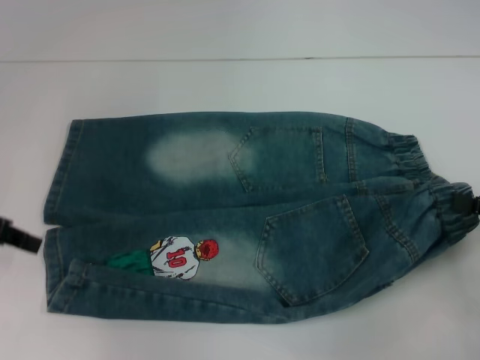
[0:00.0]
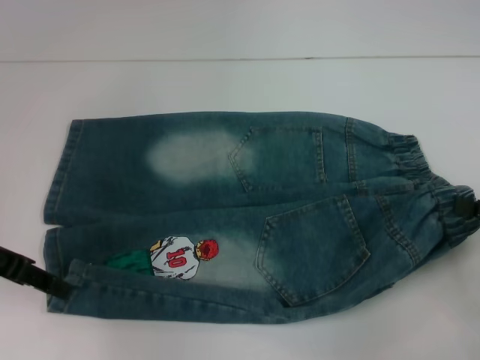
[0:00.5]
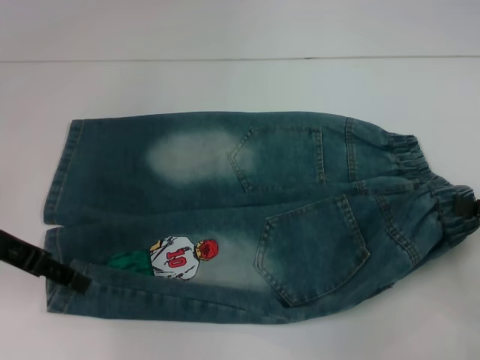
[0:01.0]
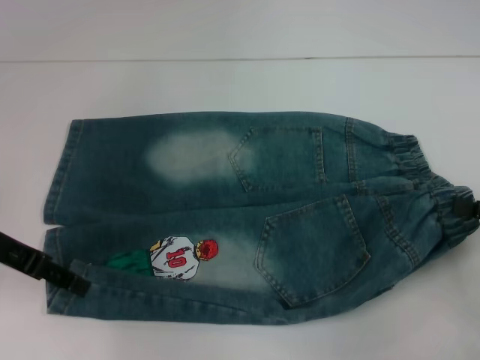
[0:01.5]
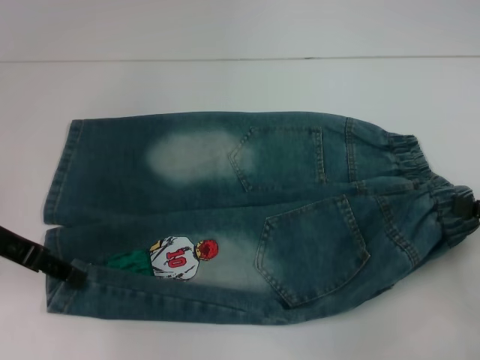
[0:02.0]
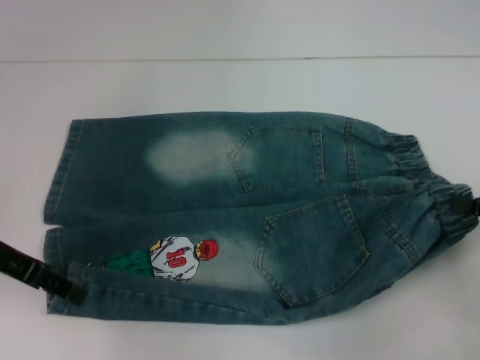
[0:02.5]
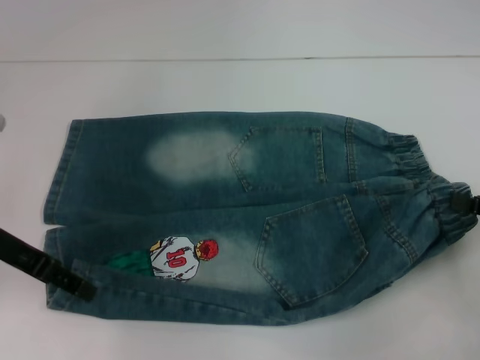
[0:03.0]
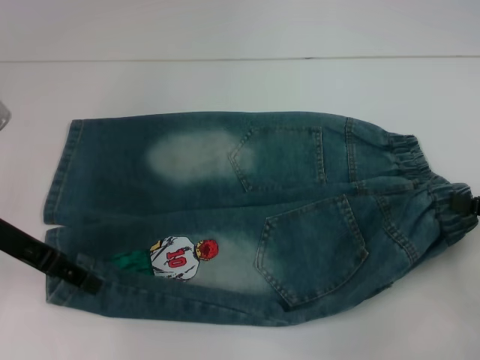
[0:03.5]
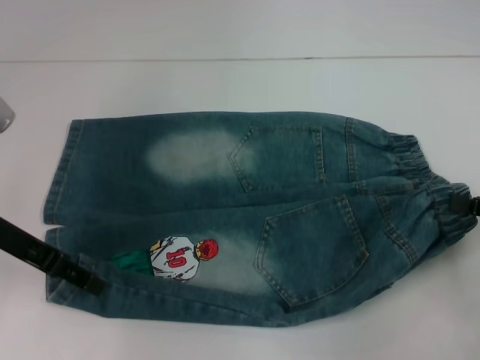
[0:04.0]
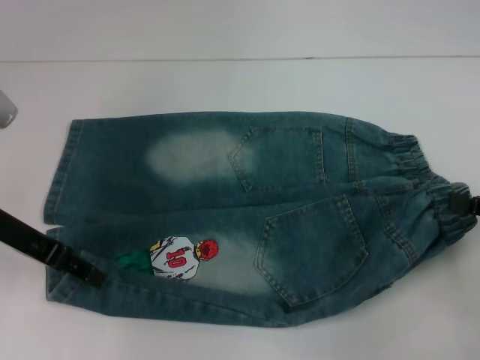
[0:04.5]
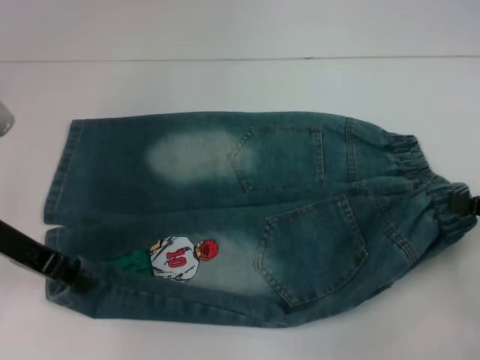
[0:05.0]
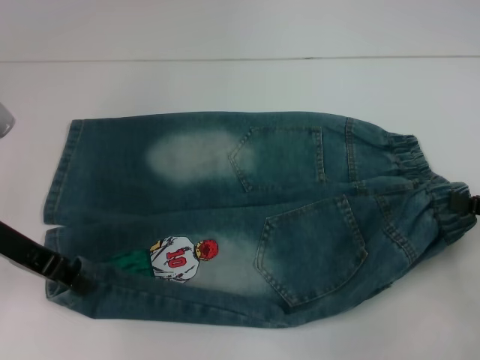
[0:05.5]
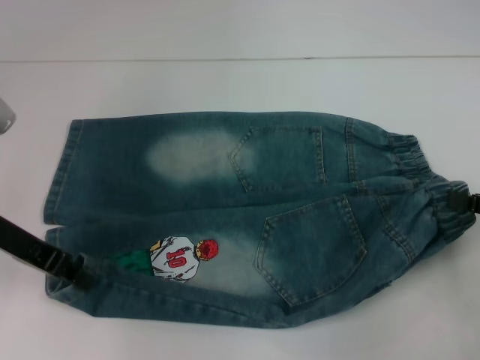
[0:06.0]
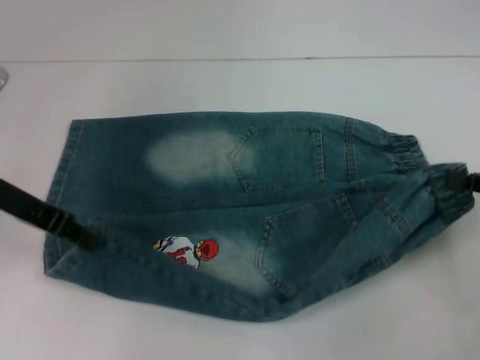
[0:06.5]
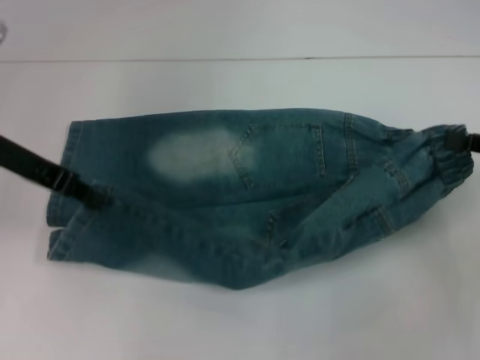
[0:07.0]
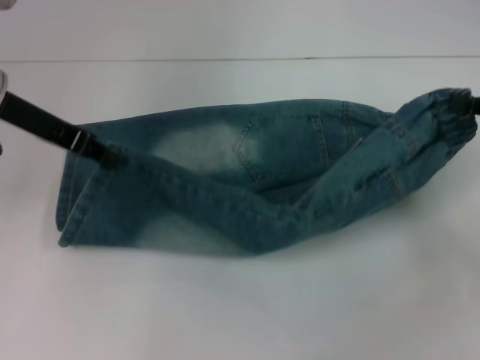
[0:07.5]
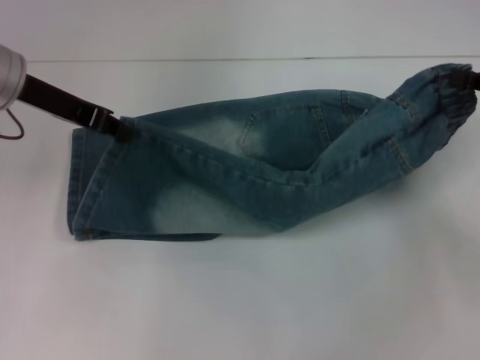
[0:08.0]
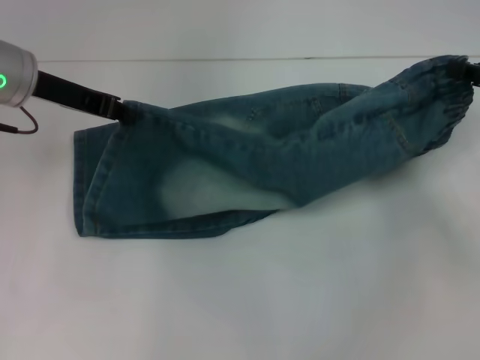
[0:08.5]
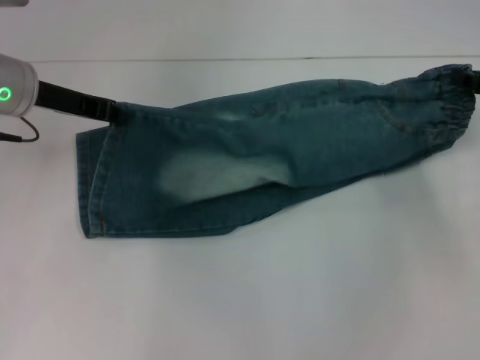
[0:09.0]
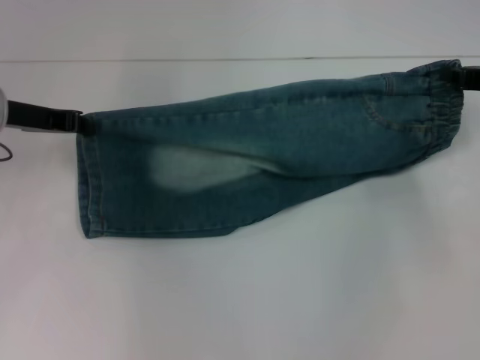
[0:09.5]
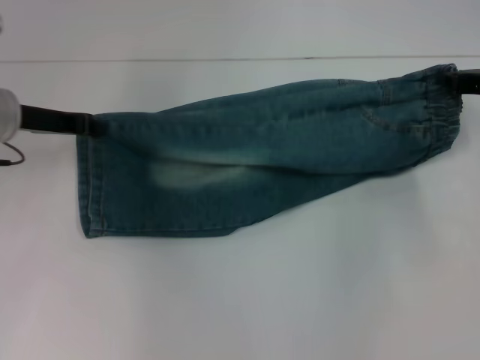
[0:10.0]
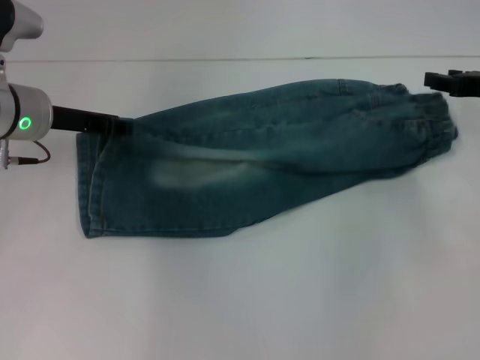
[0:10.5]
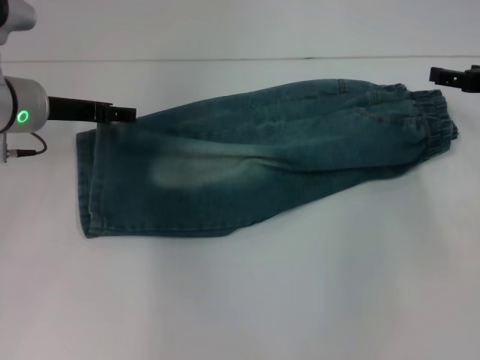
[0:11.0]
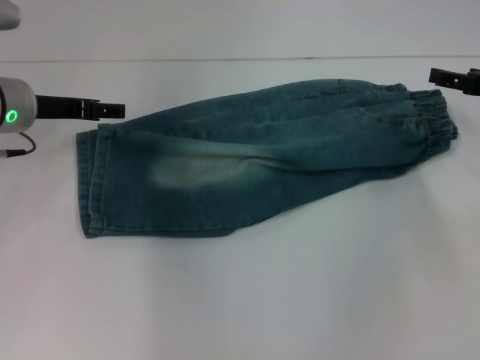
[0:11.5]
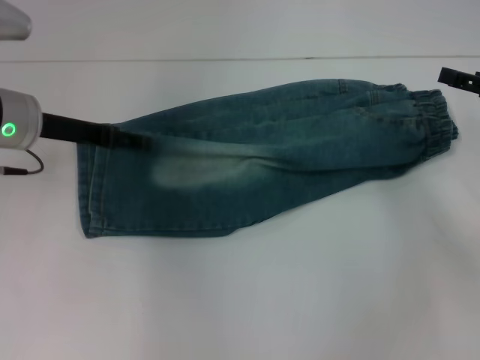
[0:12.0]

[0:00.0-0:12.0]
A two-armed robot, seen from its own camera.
Step, 0:00.0 to 0:11.5: Fold upward with your right hand.
0:00.0 to 0:02.0: The left gripper opens its fingers.
0:02.0 to 0:04.0: The grippers move only a little.
0:06.0 to 0:08.0: The right gripper goes about 10 cm forward, while the left gripper travels forward and upward by roughly 10 cm.
0:08.0 to 0:10.0: The left gripper goes roughly 5 cm downward; the right gripper changes place by some 5 cm.
0:10.0 to 0:12.0: The left gripper opens; the right gripper changes place by approximately 5 cm, and opens up.

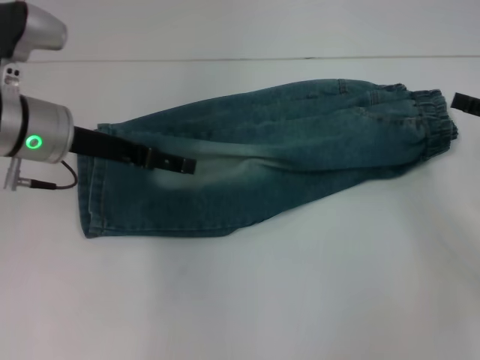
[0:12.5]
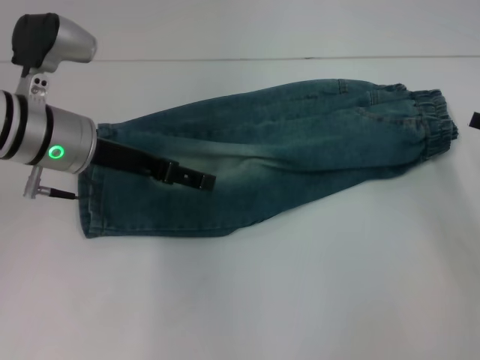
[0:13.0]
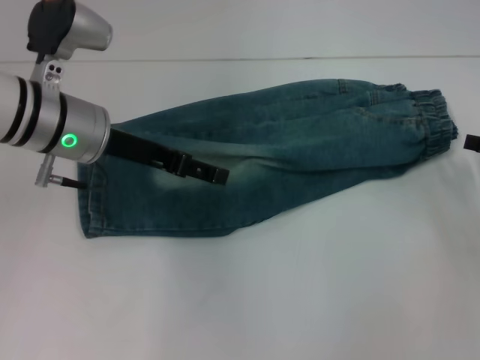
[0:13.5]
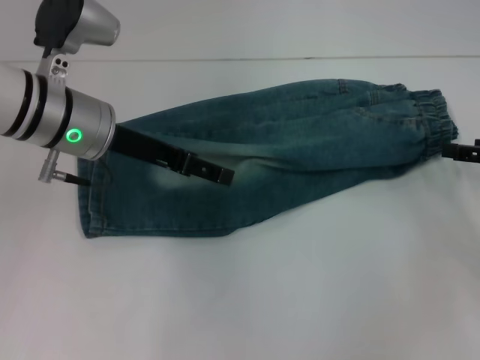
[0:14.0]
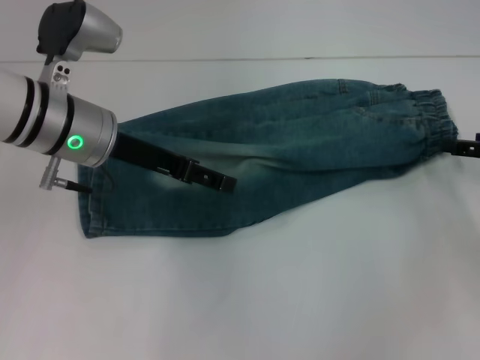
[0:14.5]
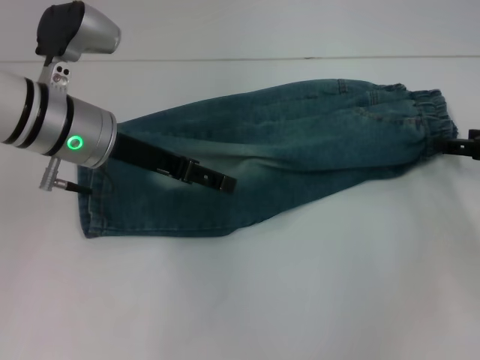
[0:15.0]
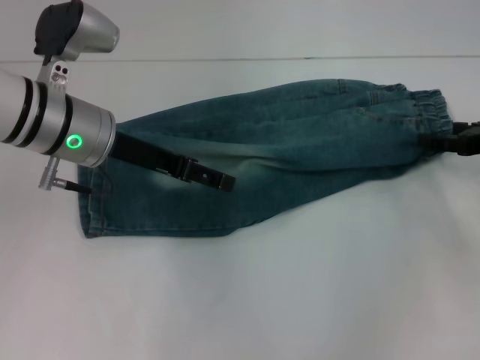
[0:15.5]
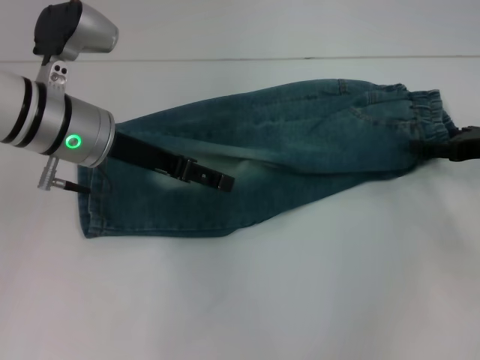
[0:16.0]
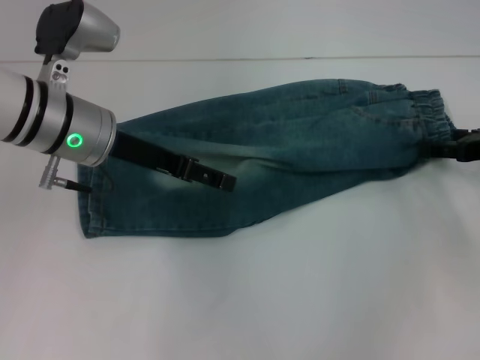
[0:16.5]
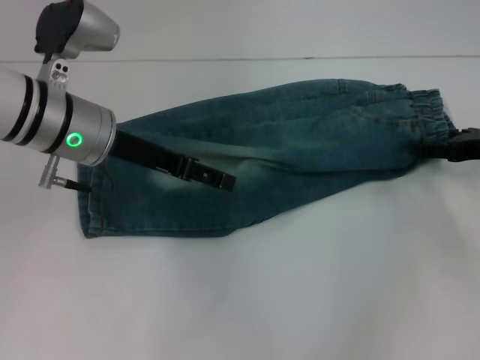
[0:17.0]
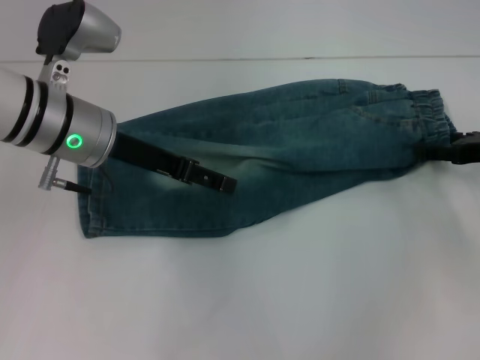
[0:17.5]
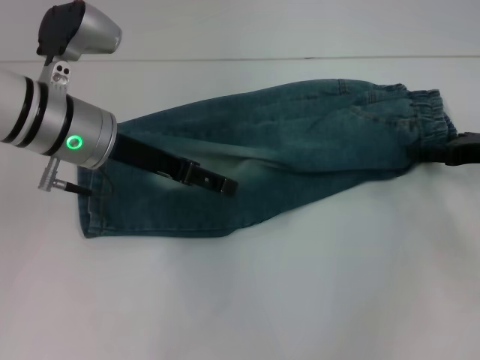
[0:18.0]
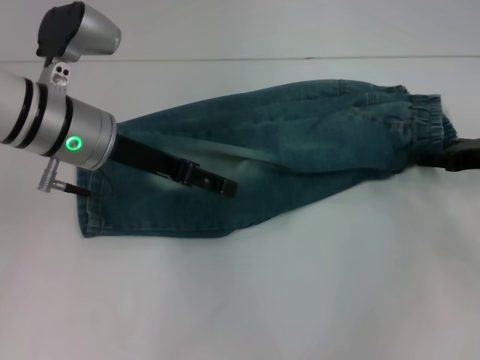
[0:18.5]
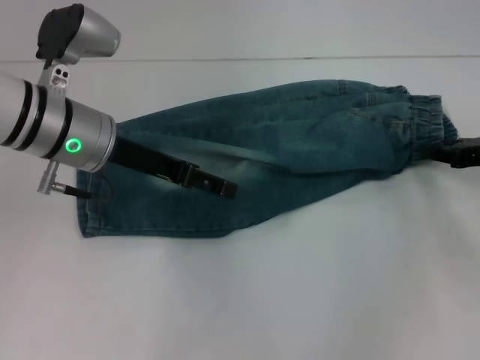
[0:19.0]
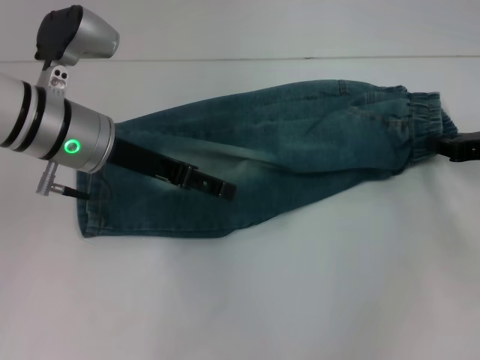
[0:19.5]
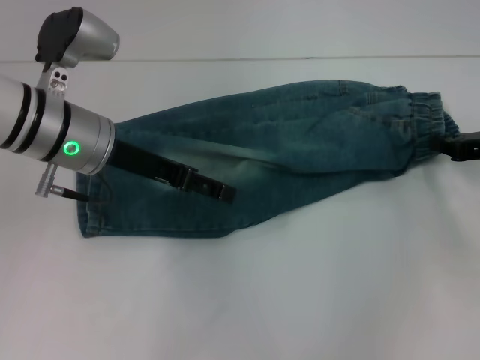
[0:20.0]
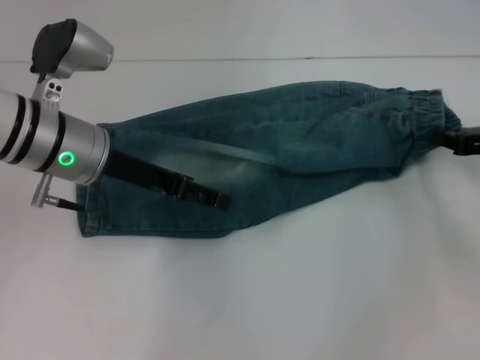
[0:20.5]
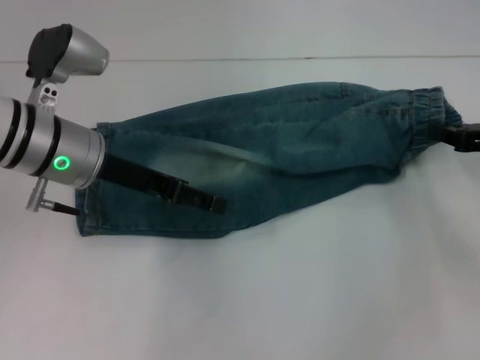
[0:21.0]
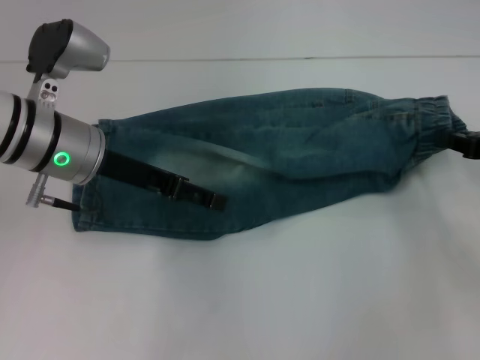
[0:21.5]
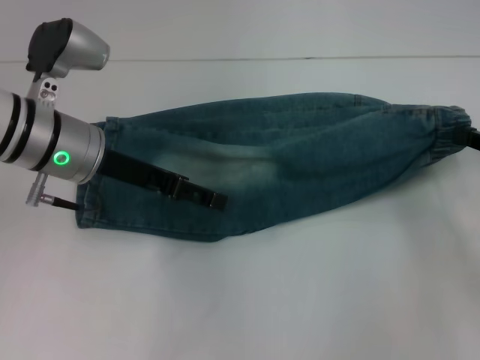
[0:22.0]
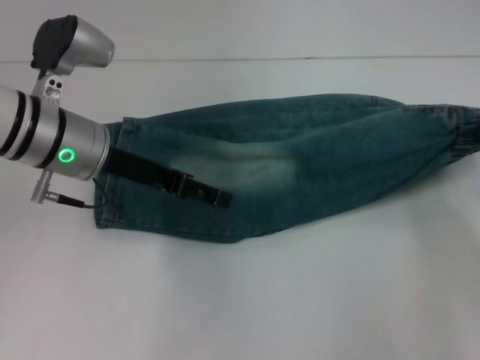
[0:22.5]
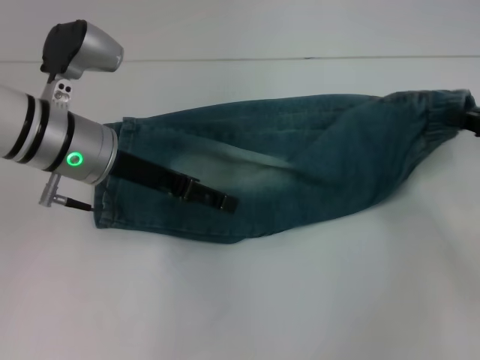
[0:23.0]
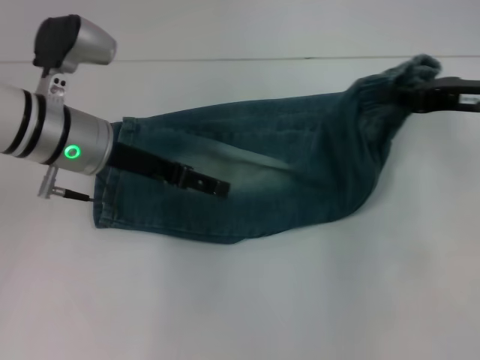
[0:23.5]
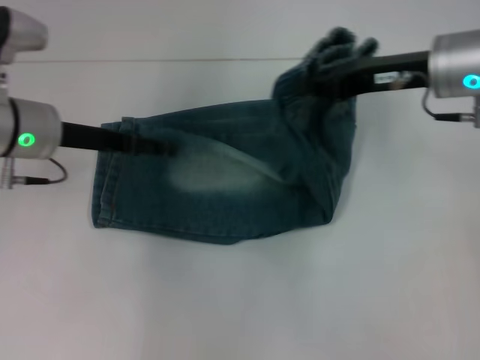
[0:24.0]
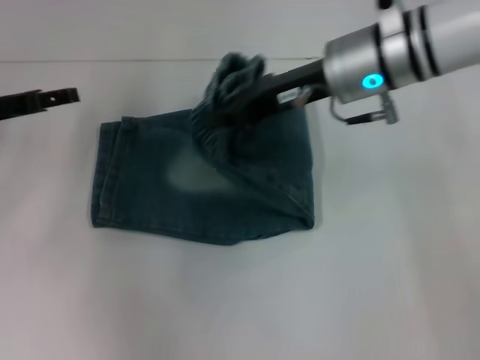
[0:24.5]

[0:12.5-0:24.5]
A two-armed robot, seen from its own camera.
Step, 0:12.5 to 0:17.0: Grab the waistband with your right hand.
Step, 0:17.5 to 0:23.5: Press the middle of the pants with your left hand.
0:12.5 to 0:14.5: The grippers stay close to where they were, moving slightly.
0:14.5 to 0:18.5: The grippers move only a little.
0:18.5 to 0:20.5: The right gripper closes.
0:20.5 to 0:22.5: The right gripper moves about 5 cm.
0:22.5 to 0:24.5: The left gripper travels to the left by roughly 15 cm, while the right gripper shifts roughly 25 cm to the left.

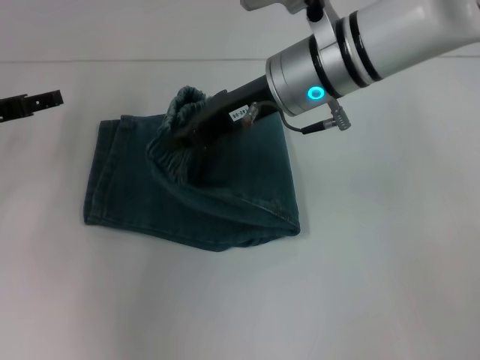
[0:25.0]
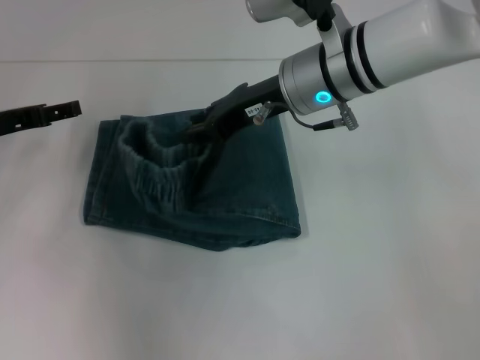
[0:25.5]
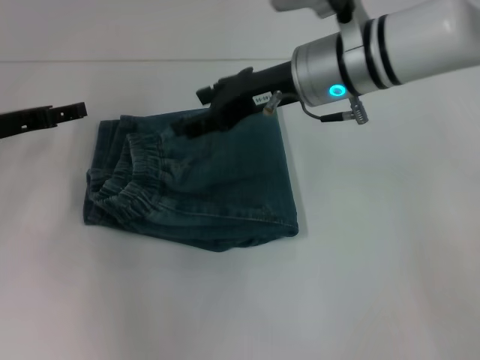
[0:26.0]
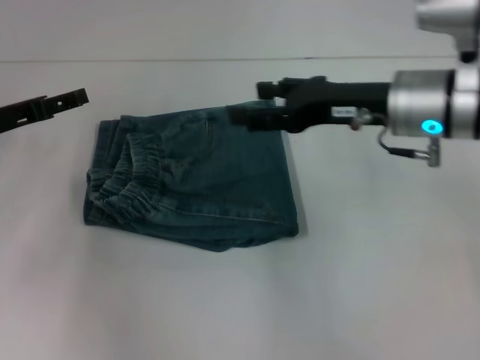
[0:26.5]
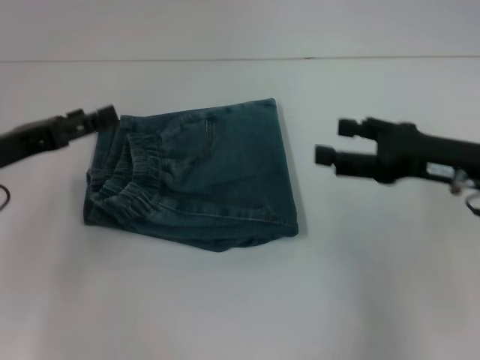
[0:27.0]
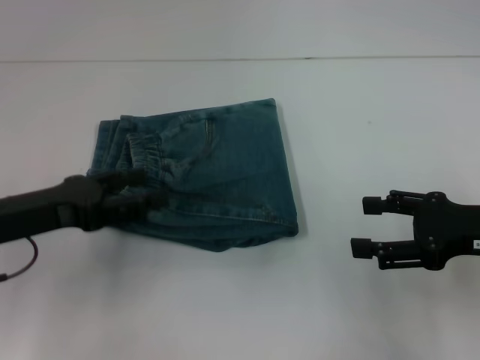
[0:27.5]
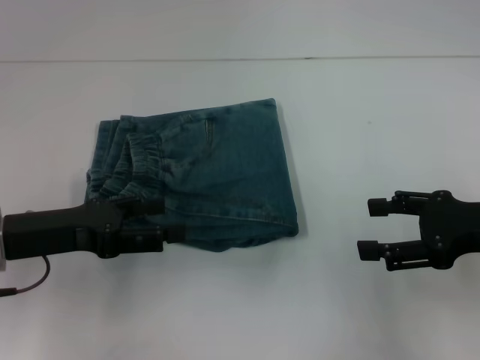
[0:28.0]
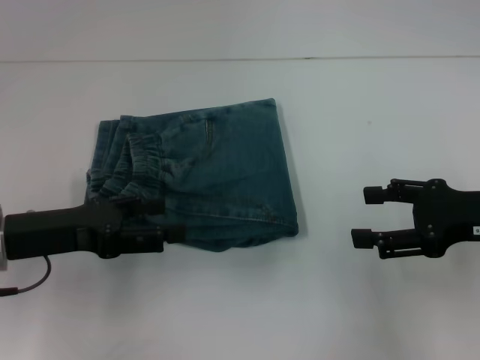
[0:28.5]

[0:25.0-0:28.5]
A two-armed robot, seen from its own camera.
0:25.0 to 0:27.0: The left gripper heads backward, covering some 5 cm; the right gripper is displaced to the right and backward by approximately 20 cm, and opens up.
0:27.0 to 0:28.5: The left gripper shifts by some 5 cm.
